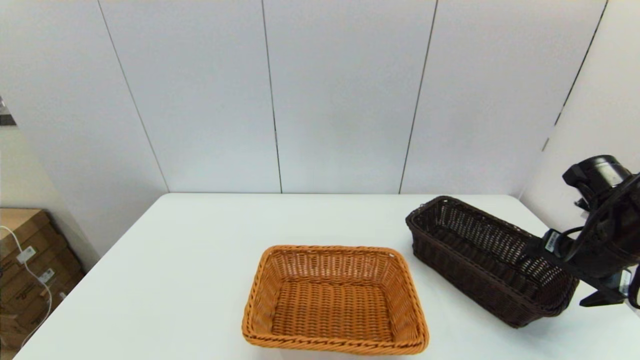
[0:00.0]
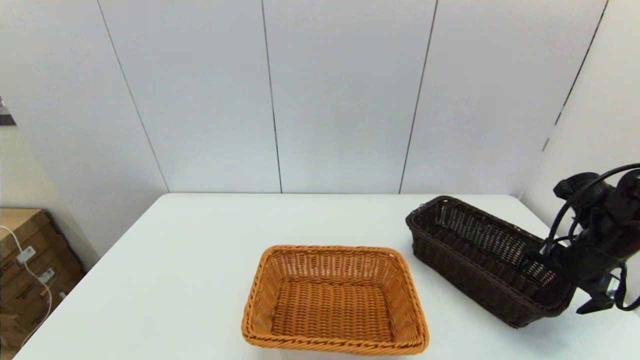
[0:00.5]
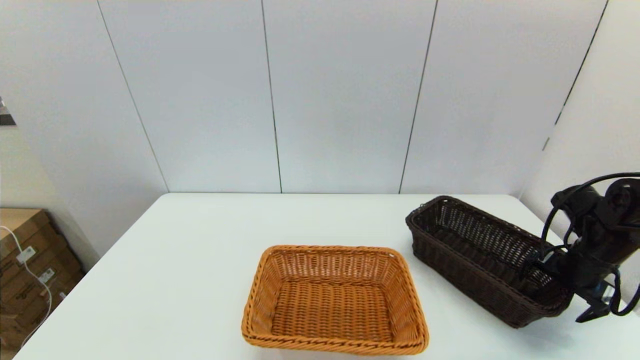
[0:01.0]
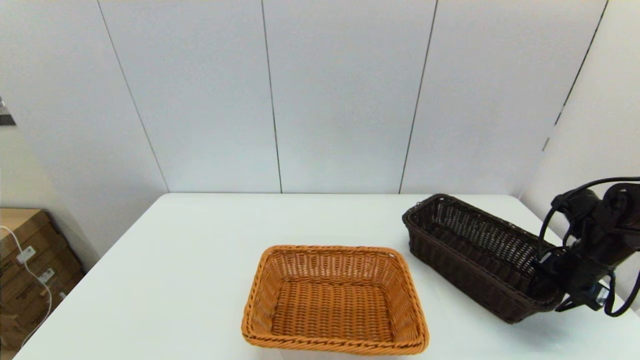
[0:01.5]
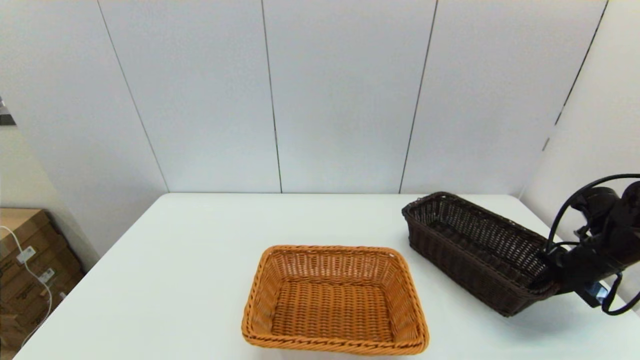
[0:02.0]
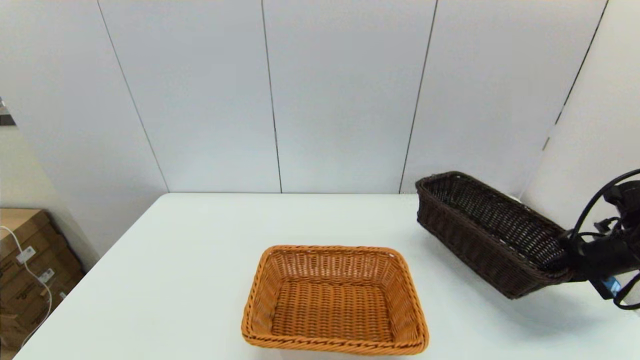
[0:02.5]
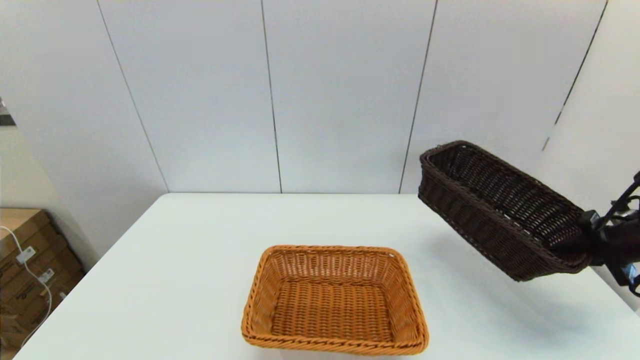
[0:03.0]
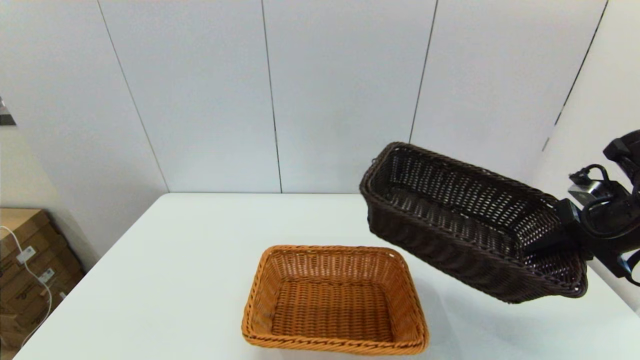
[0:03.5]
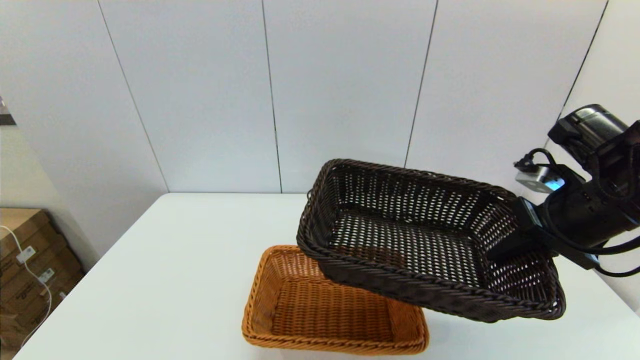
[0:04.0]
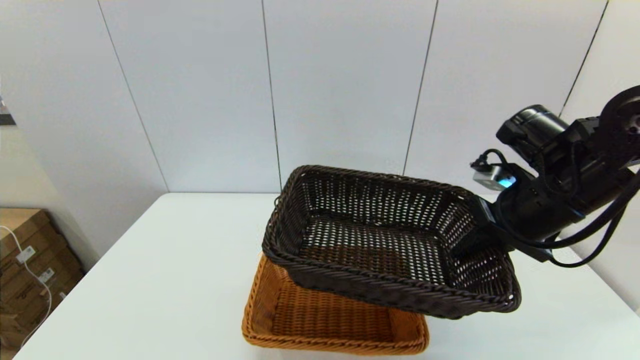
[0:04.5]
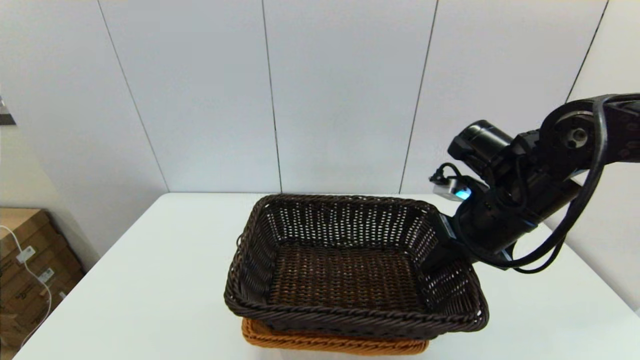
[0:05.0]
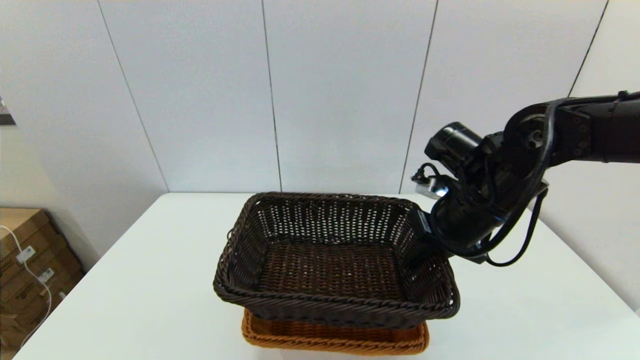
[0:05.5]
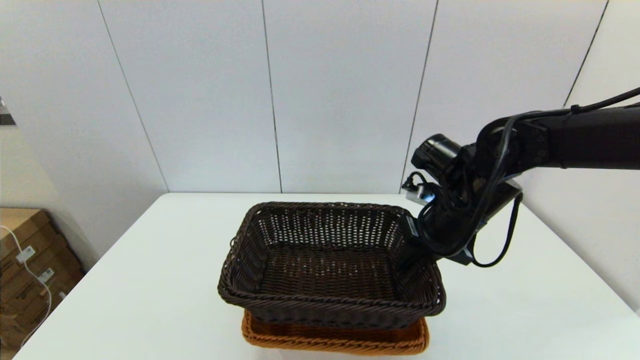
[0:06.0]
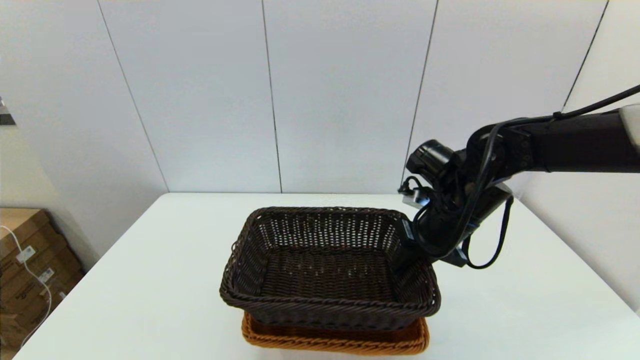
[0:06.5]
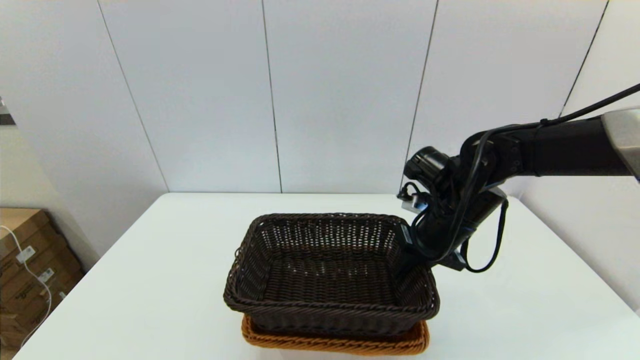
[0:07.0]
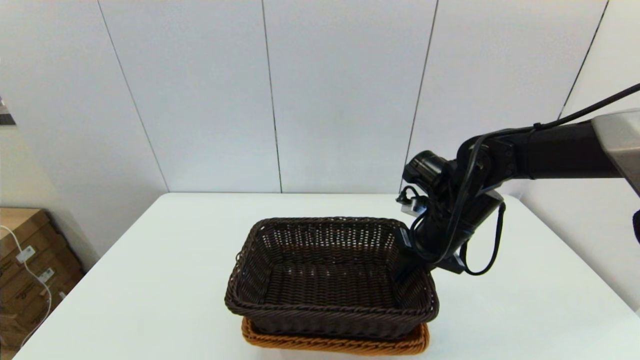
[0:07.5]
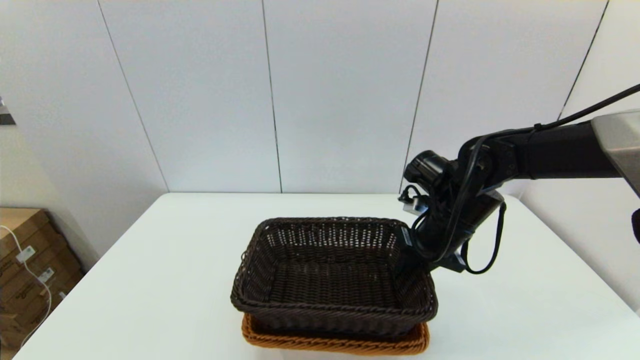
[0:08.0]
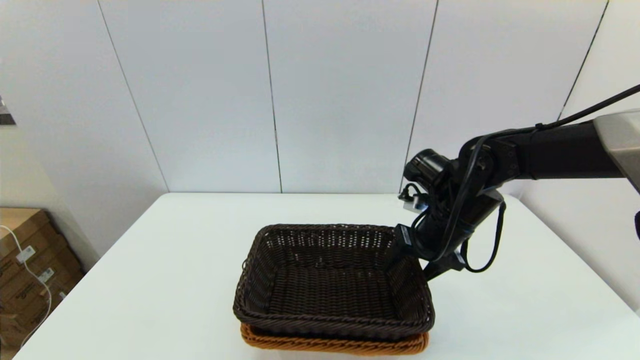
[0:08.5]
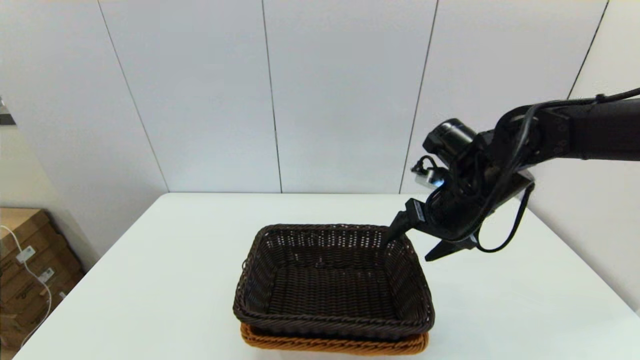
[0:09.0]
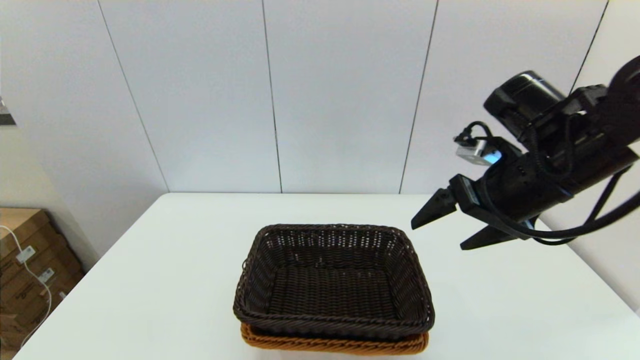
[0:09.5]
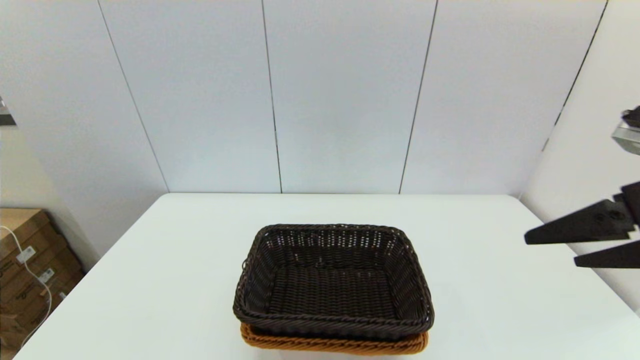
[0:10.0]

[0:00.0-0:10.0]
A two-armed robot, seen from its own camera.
Task of the whole recording: stack a basket on top of another basket.
Step, 0:02.0 to 0:09.0: Place the dark basket into the light color basket with the right gripper.
0:00.0 to 0:02.0: The right gripper shifts about 10 cm to the right and downward, and closes up.
0:02.0 to 0:04.0: The right gripper shifts approximately 20 cm upward and to the left.
0:04.0 to 0:06.0: The right gripper travels to the left, forward and downward by about 15 cm.
0:06.0 to 0:08.0: The grippers move only a little.
0:08.0 to 0:10.0: The right gripper is displaced backward, upward and to the right by about 25 cm, and opens its fingers.
